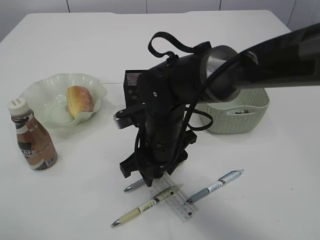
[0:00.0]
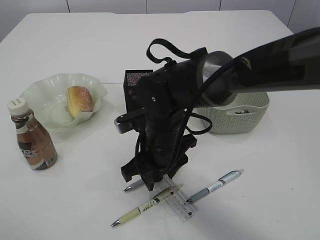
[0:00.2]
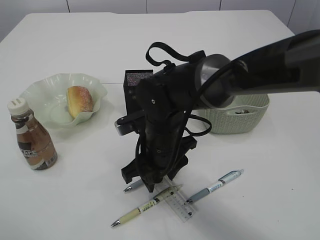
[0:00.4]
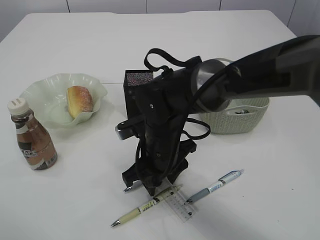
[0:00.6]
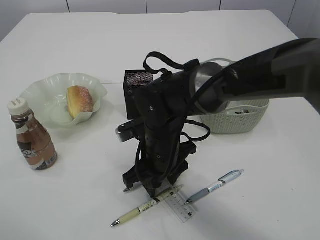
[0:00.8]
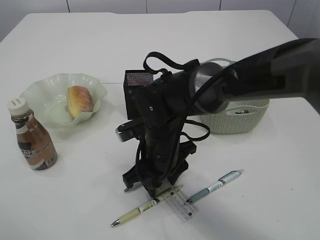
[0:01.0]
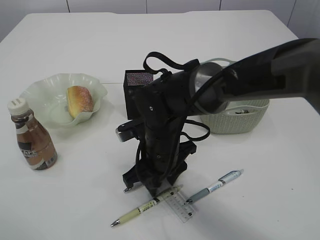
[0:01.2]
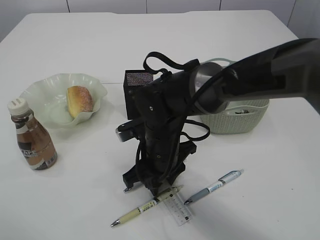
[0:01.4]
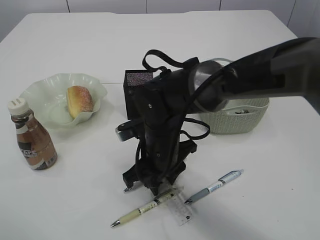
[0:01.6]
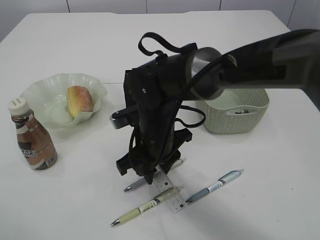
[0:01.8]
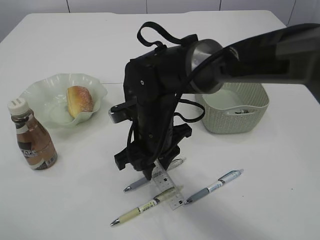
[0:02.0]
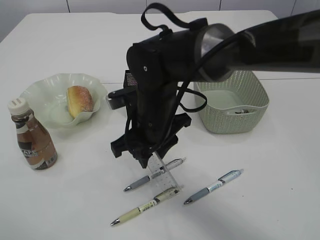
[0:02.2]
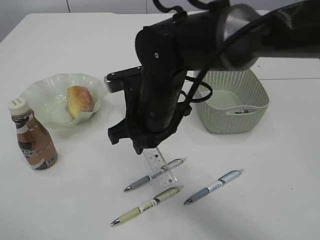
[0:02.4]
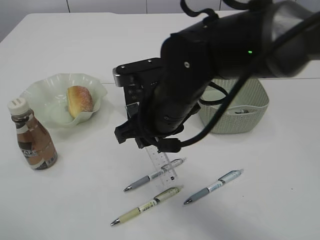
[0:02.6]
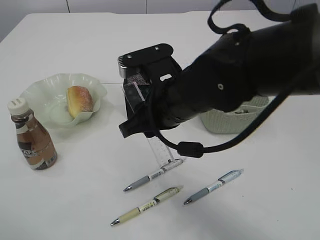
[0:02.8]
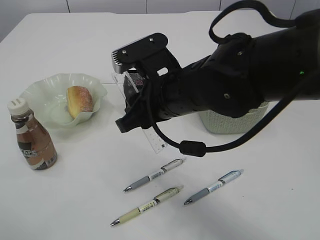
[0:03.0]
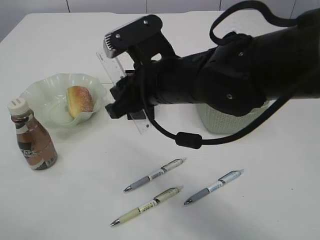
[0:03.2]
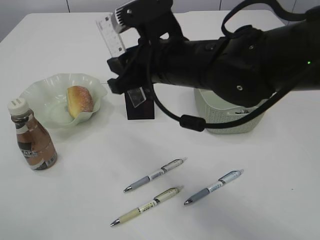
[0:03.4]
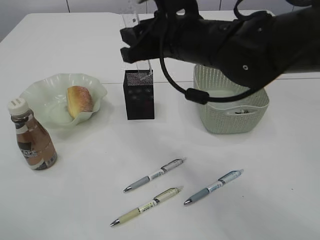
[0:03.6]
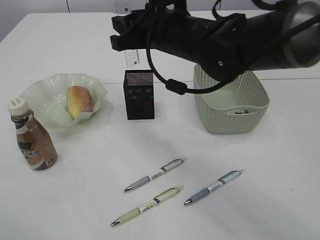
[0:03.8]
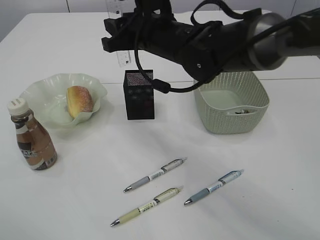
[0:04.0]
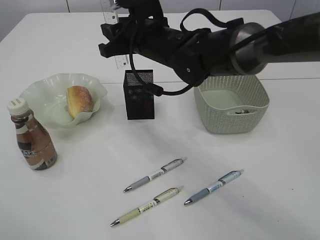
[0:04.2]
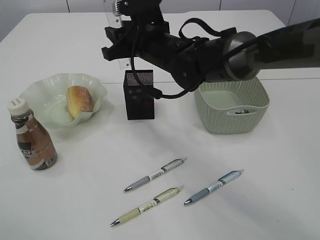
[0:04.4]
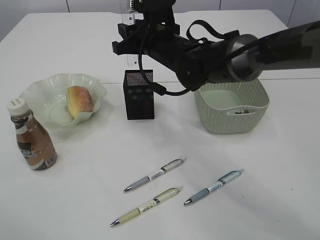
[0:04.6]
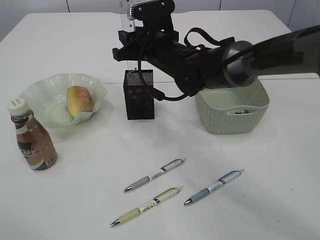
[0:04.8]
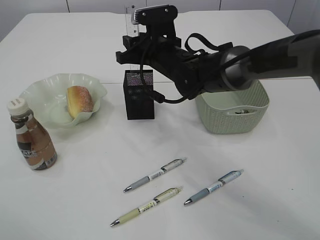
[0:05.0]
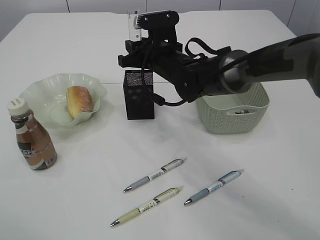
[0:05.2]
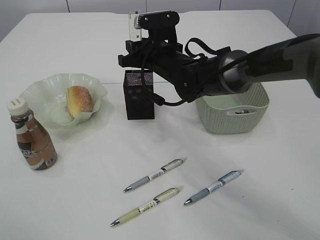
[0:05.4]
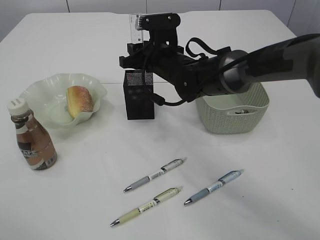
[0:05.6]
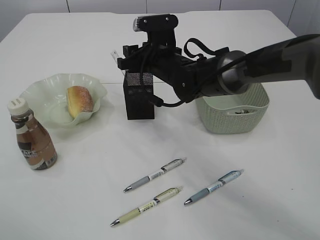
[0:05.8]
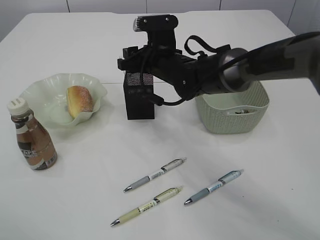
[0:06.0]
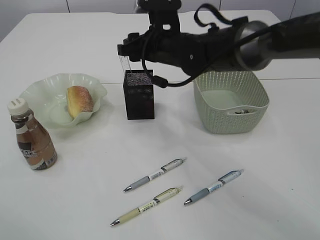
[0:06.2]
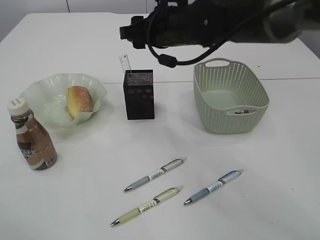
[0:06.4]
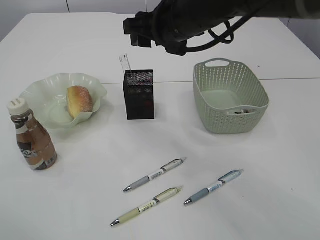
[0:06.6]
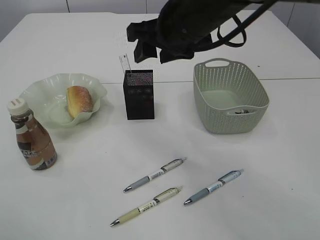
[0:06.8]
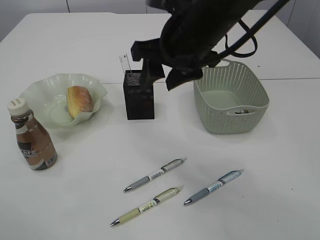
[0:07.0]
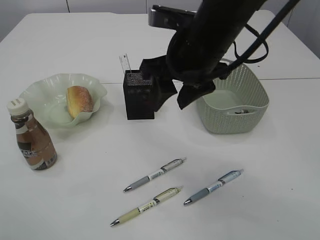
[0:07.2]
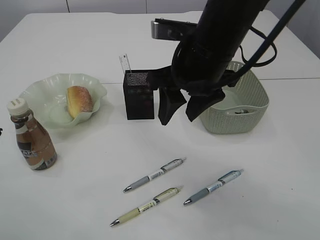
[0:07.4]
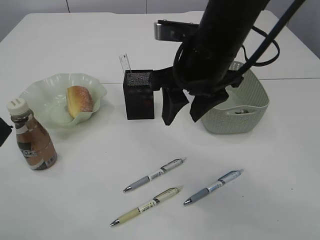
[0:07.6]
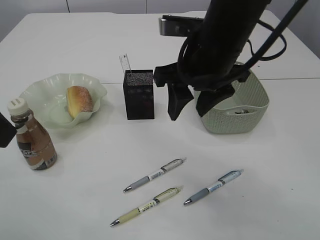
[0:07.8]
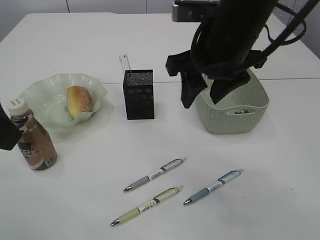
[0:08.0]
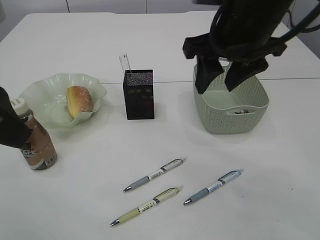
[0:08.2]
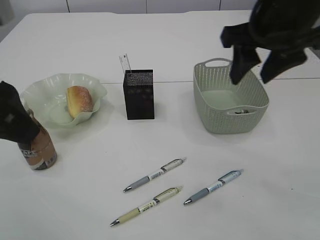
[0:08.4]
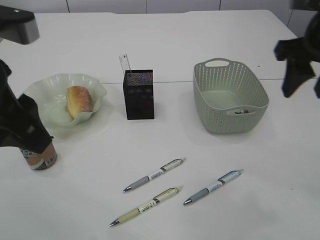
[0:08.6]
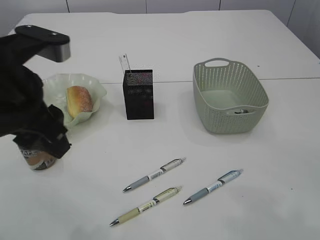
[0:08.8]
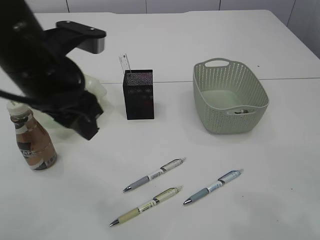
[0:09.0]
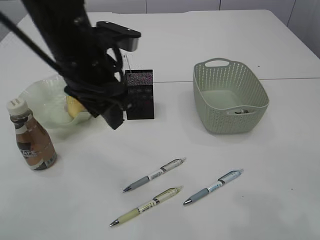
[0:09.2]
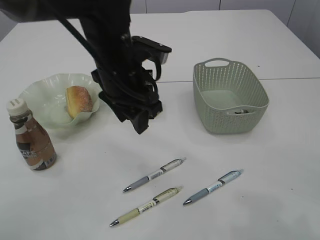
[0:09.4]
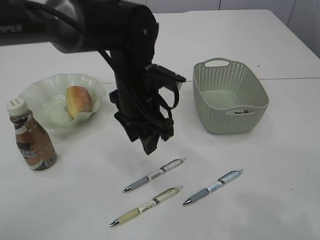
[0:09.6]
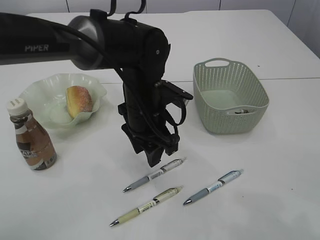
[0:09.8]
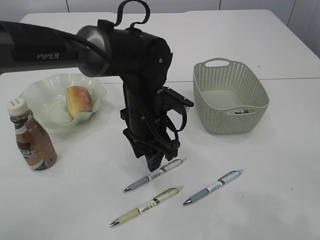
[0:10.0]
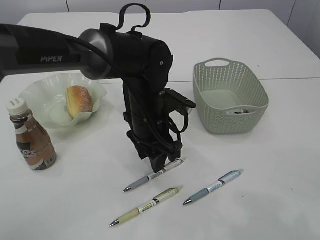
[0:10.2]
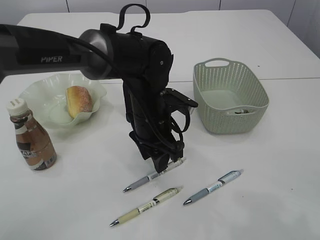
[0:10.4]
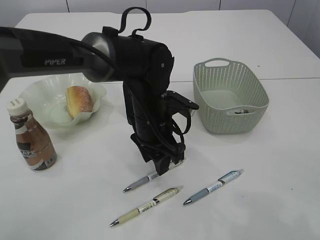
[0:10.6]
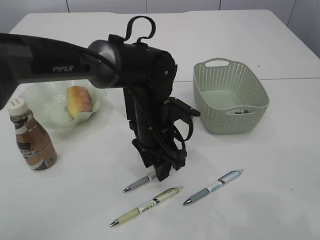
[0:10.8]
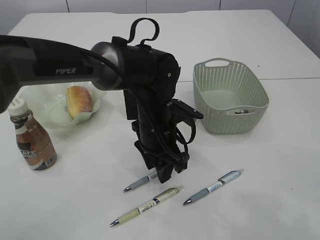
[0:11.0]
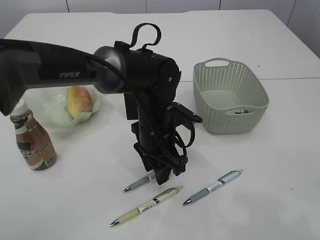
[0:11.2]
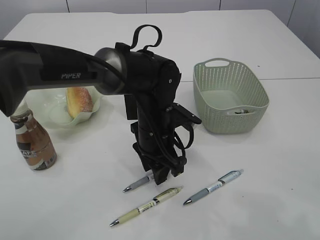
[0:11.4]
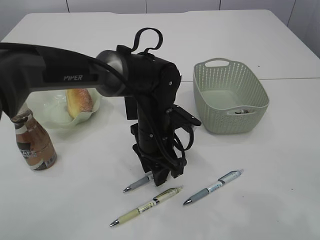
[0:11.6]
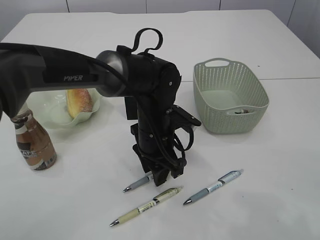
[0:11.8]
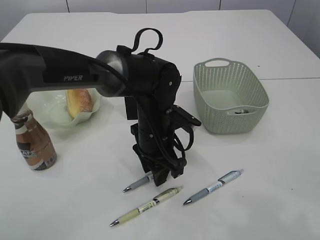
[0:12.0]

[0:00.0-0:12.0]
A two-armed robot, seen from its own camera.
Step, 0:00.0 to 0:02.6: pick up the ruler.
Step, 0:02.8 to 0:06.8: Place the ruler into the pen holder.
0:00.0 to 0:01.6: The grippers make only small movements.
0:01.6 to 0:03.0: The right gripper is displaced upward by roughly 10 cm.
0:03.0 to 0:04.4: The right gripper moves forward, roughly 15 cm.
0:04.4 to 0:06.0: The right gripper ends up some 5 cm from where it was.
0:06.0 to 0:07.6: The right gripper goes some 15 cm backward and upward.
0:07.6 to 0:09.0: The left gripper moves forward, to the right and downward, about 15 cm. The right gripper shifts roughly 20 cm to the right.
0:09.0 to 0:10.4: The left gripper is displaced downward, to the right and forward by some 20 cm.
0:10.4 to 0:12.0: The grippers move only a little.

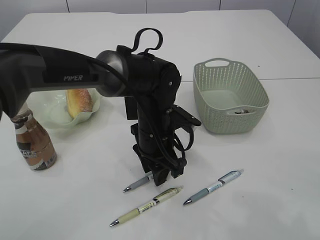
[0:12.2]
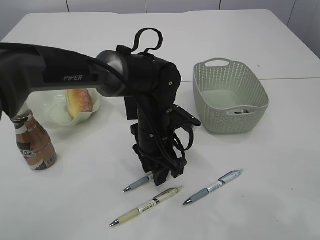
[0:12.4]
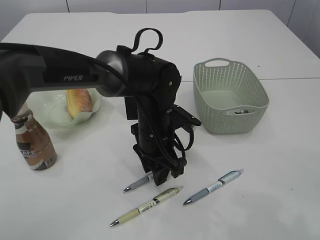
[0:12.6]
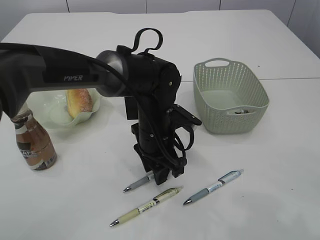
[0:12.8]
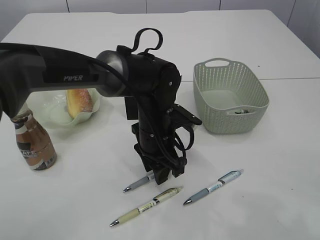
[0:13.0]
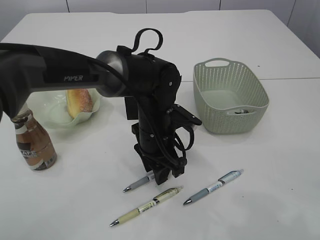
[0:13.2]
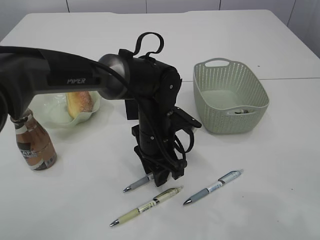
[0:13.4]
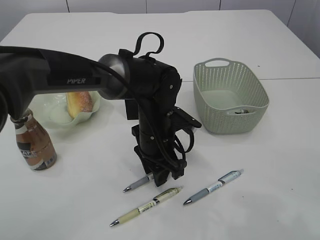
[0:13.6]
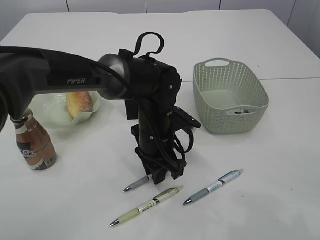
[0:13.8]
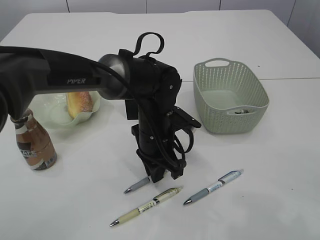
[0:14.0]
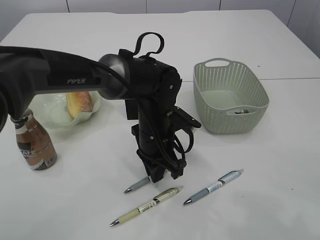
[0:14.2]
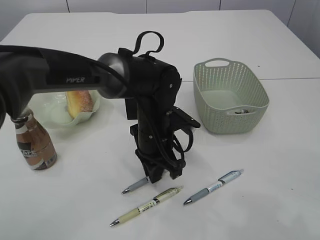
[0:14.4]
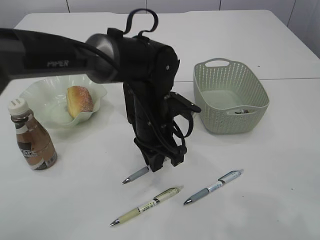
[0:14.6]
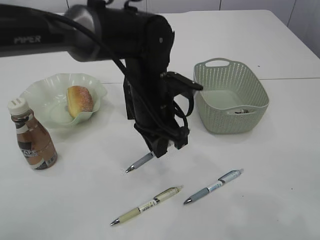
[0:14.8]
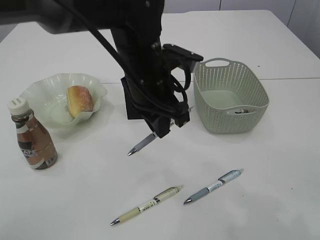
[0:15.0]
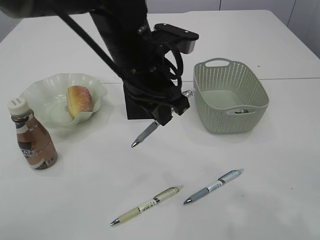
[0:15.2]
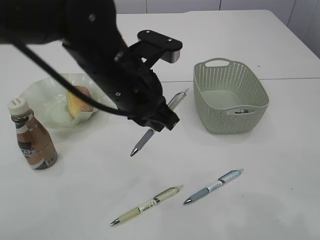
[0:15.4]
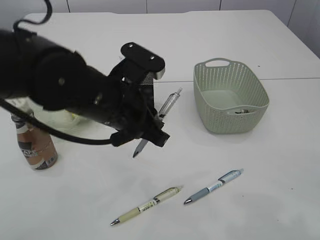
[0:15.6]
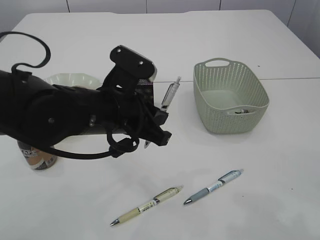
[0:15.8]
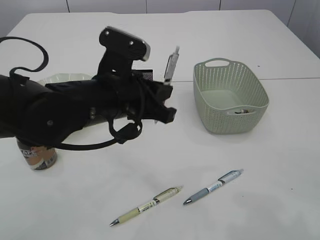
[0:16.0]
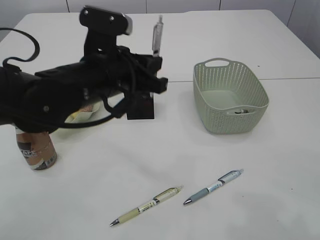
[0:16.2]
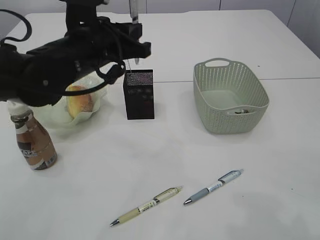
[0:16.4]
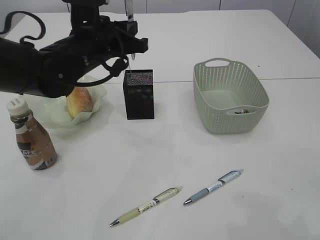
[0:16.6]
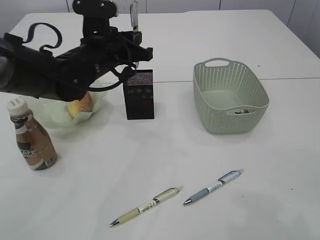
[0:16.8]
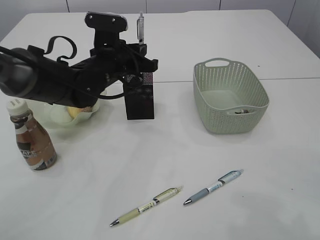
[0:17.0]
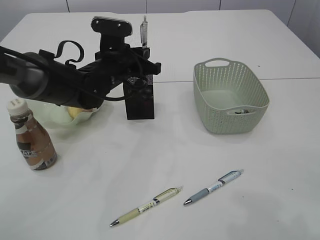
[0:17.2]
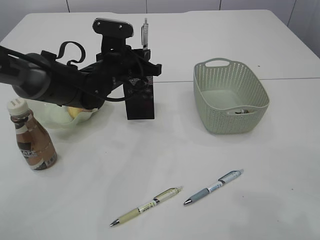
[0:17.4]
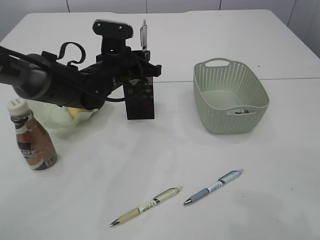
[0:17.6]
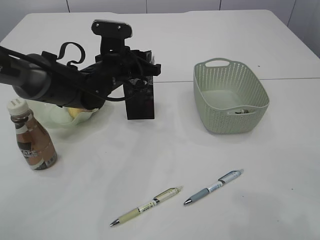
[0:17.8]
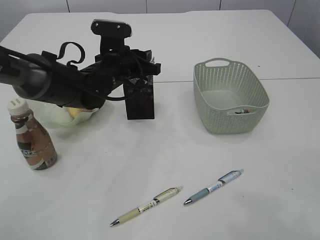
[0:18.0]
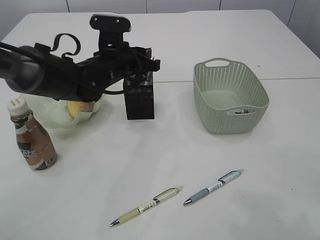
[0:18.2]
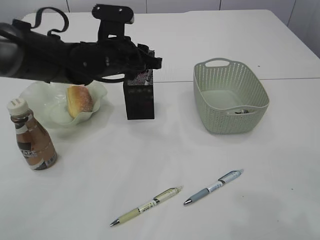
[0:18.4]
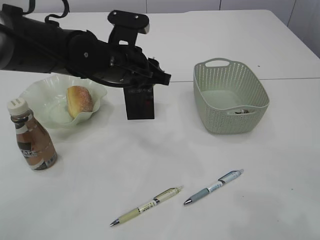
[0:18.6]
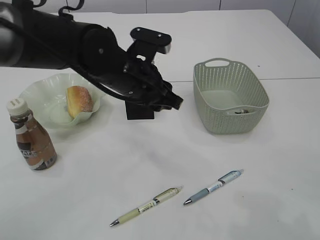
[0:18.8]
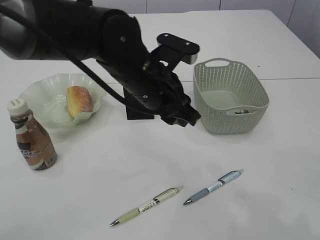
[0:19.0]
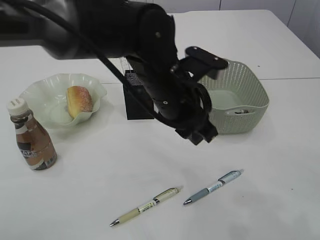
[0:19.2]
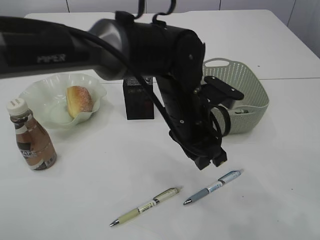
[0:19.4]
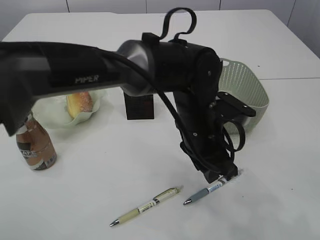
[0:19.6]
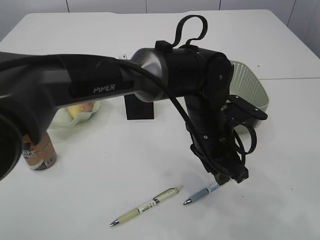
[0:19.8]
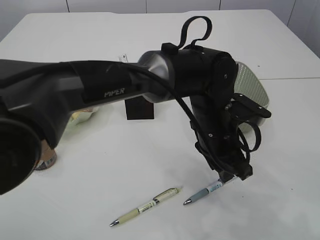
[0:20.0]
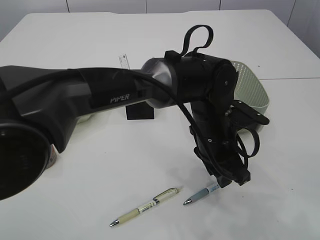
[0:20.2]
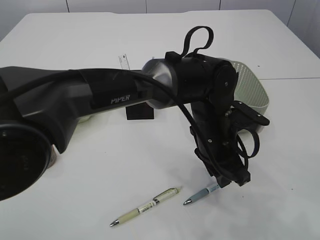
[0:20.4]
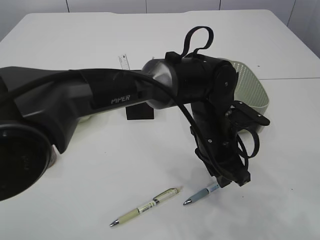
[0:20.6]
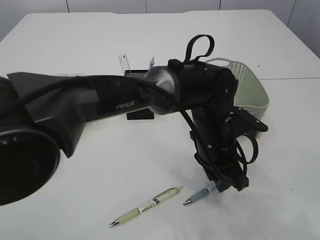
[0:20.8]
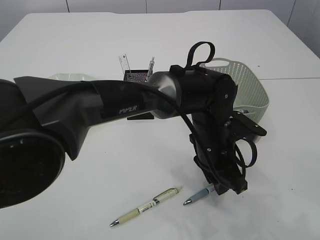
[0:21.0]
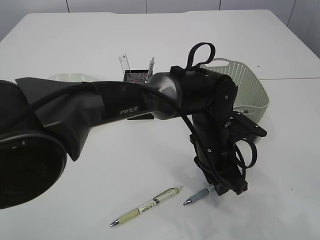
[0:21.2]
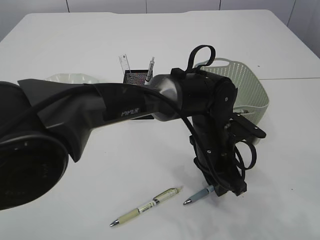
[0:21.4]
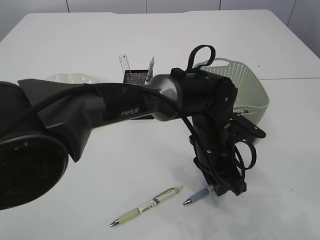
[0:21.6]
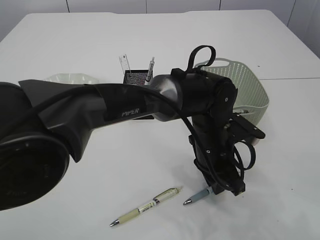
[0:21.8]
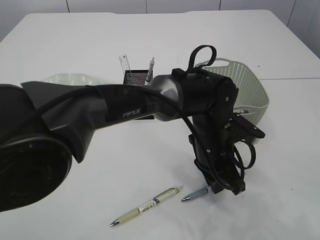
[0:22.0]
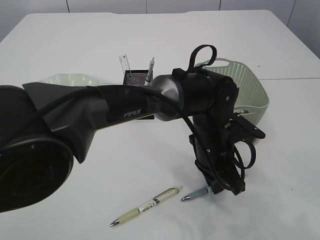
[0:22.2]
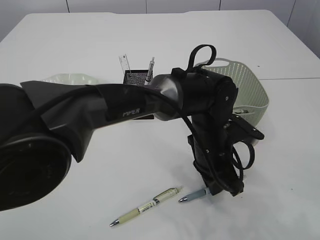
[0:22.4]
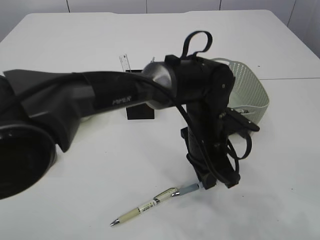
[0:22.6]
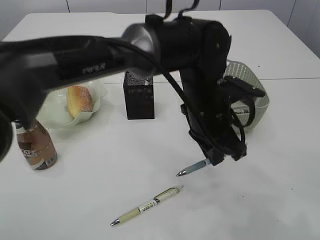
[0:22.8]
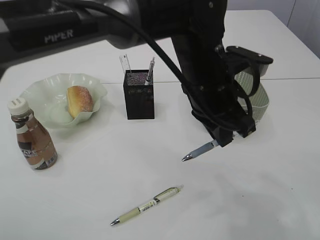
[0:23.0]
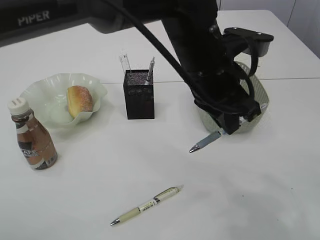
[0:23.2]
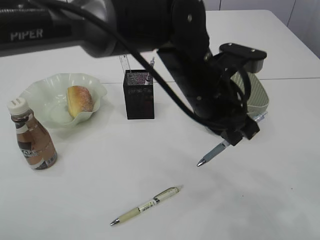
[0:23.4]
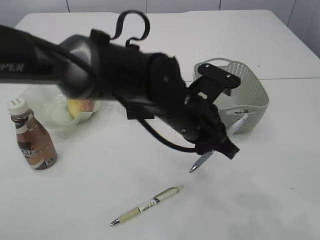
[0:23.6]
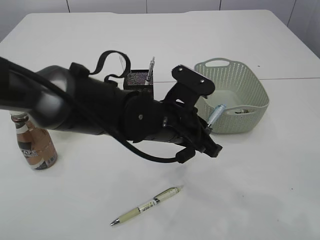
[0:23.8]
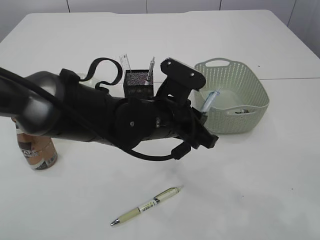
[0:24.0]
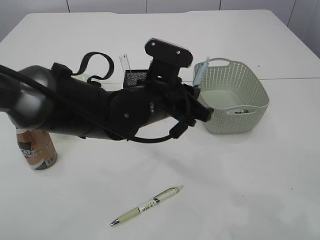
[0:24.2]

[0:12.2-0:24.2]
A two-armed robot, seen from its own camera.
Step, 0:12.2 to 0:15.2: Pick up the pen with left arm.
Step, 0:15.4 to 0:18.8: Place the pen into the pen holder.
Step, 0:19.0 to 0:23.0: Pick up the pen with left arm.
0:12.2 to 0:13.8: Neither gripper changes place.
0:13.8 to 0:15.2: The left gripper heads upward, covering roughly 15 cm.
0:15.2 to 0:16.6: The left gripper moves to the left and forward, about 10 cm.
0:16.6 to 0:18.2: The left gripper shifts approximately 5 cm downward, and opens.
0:18.2 to 0:19.8: The left gripper shifts approximately 20 cm to the right and backward.
0:21.2 to 0:22.6: The grippers make only small movements.
0:22.6 to 0:24.2: The left gripper shifts approximately 10 cm to the left and upward.
